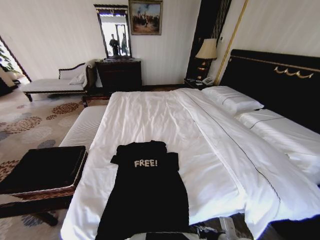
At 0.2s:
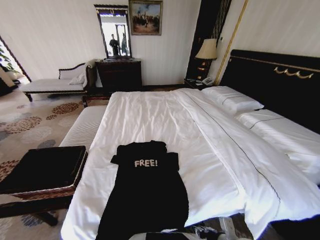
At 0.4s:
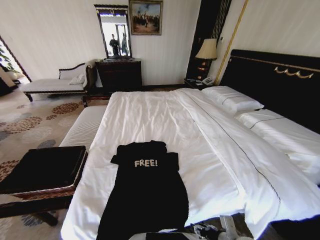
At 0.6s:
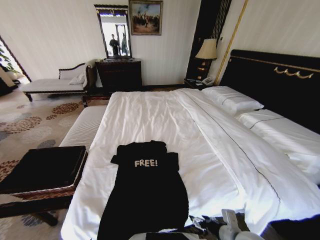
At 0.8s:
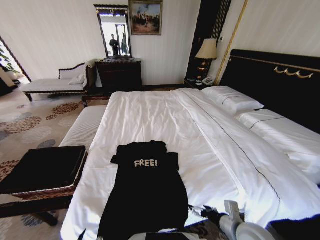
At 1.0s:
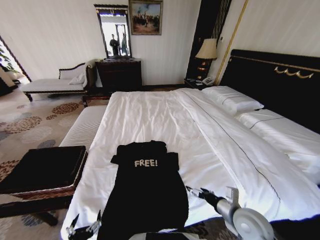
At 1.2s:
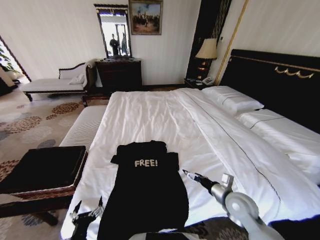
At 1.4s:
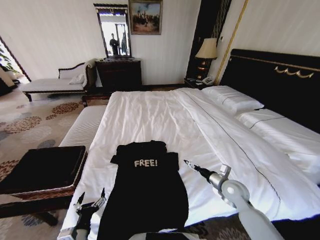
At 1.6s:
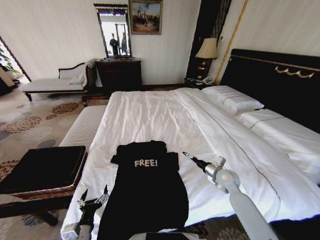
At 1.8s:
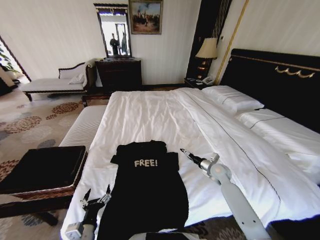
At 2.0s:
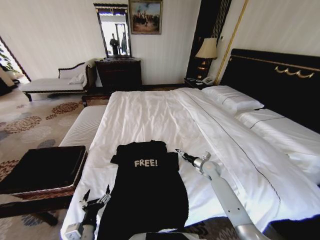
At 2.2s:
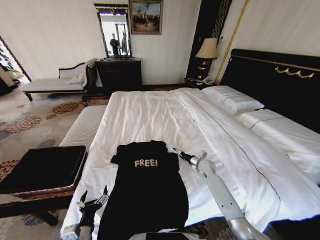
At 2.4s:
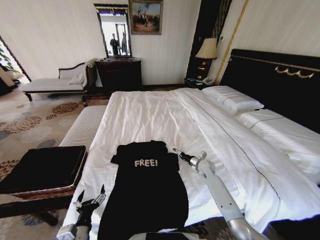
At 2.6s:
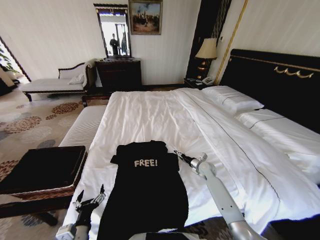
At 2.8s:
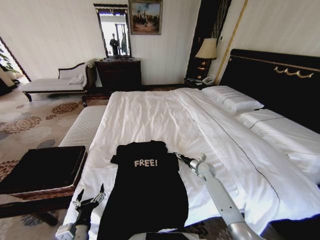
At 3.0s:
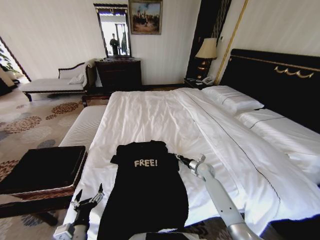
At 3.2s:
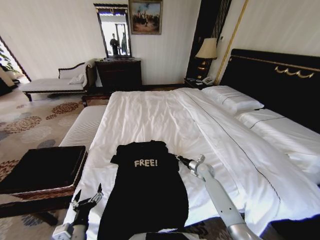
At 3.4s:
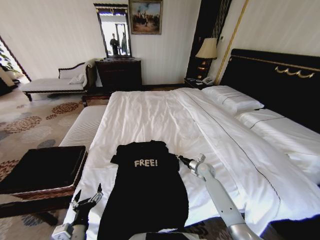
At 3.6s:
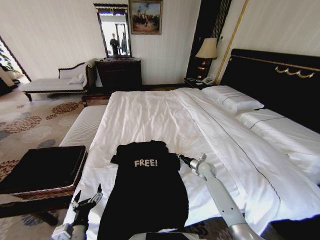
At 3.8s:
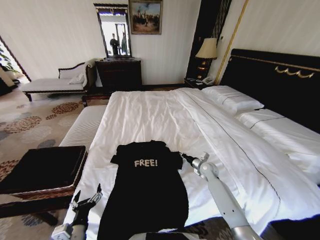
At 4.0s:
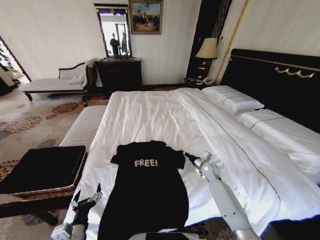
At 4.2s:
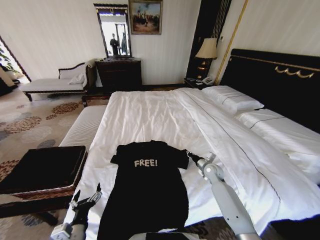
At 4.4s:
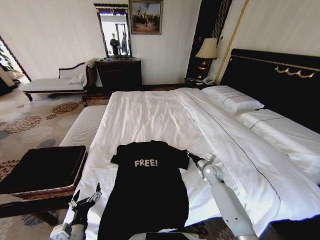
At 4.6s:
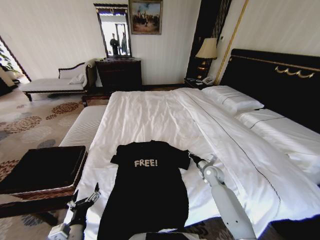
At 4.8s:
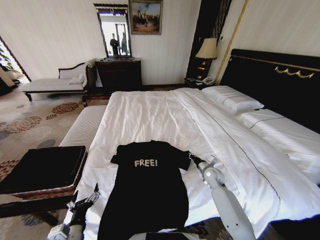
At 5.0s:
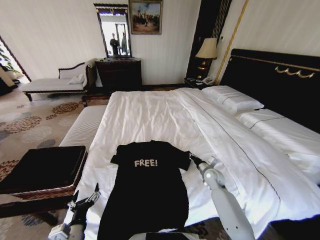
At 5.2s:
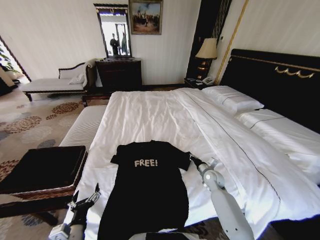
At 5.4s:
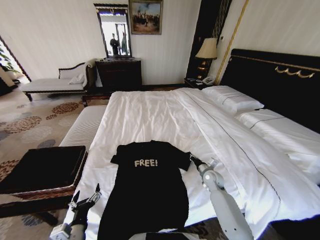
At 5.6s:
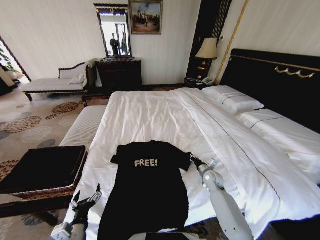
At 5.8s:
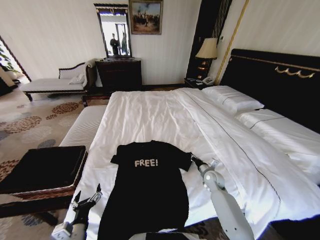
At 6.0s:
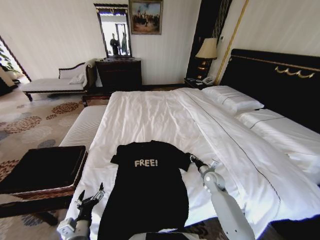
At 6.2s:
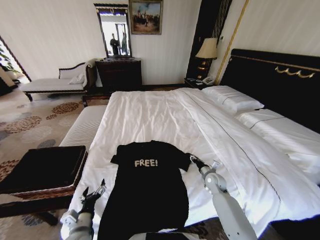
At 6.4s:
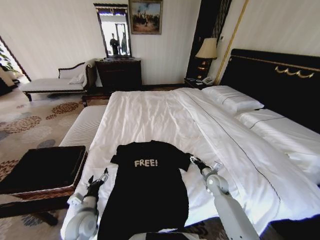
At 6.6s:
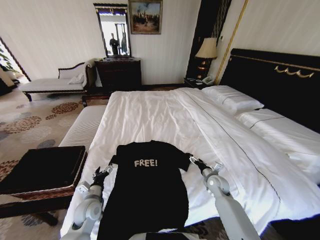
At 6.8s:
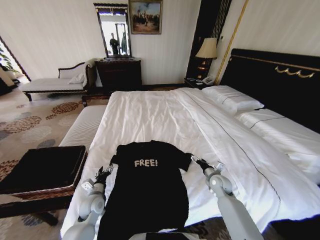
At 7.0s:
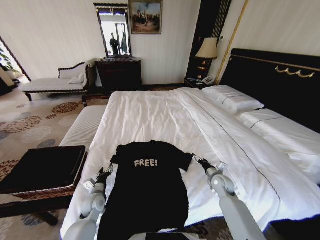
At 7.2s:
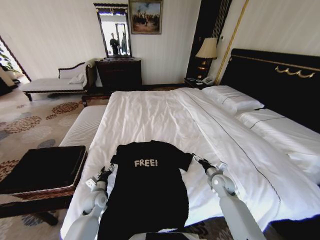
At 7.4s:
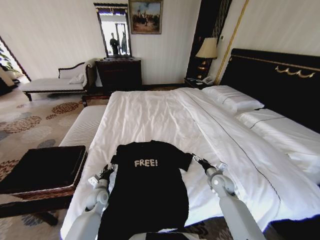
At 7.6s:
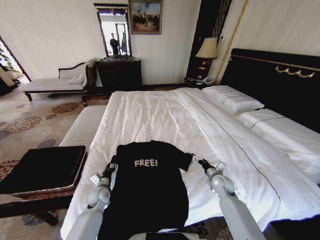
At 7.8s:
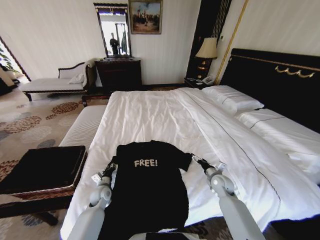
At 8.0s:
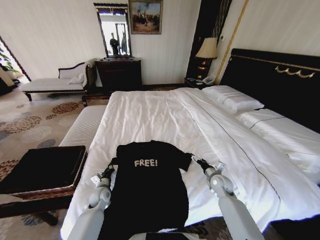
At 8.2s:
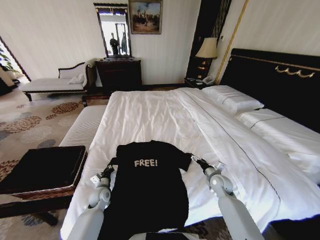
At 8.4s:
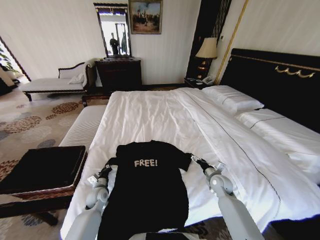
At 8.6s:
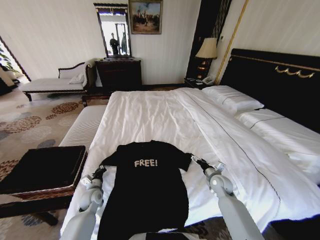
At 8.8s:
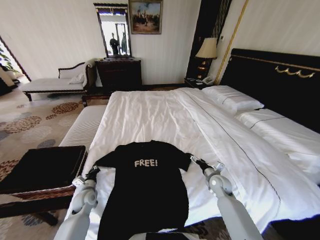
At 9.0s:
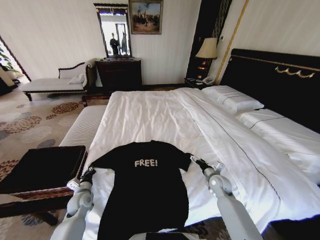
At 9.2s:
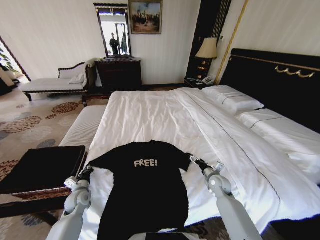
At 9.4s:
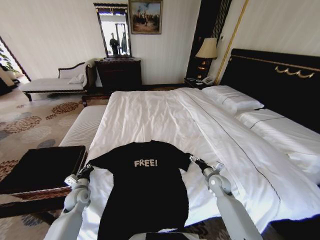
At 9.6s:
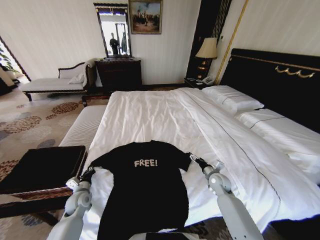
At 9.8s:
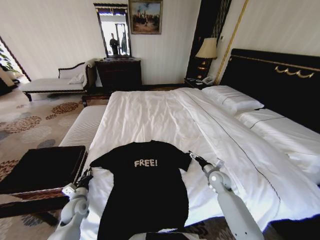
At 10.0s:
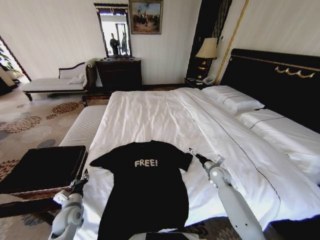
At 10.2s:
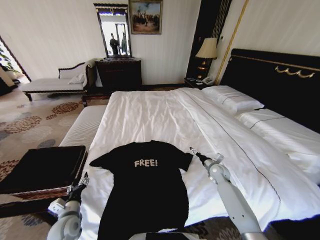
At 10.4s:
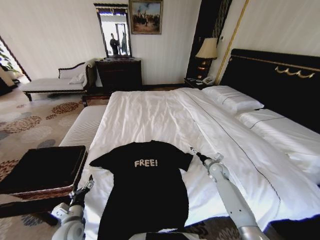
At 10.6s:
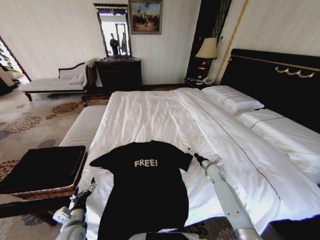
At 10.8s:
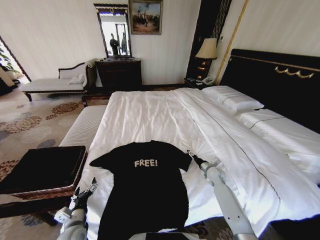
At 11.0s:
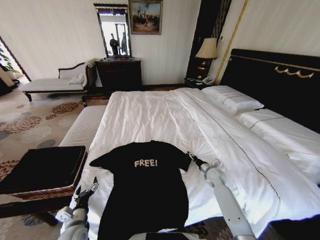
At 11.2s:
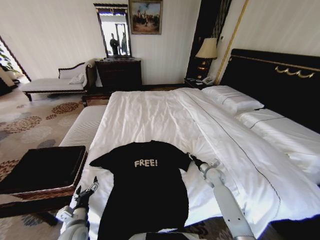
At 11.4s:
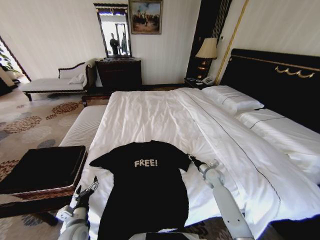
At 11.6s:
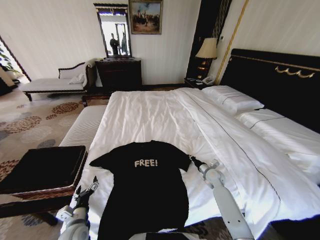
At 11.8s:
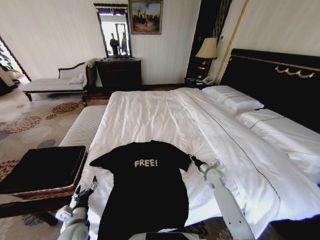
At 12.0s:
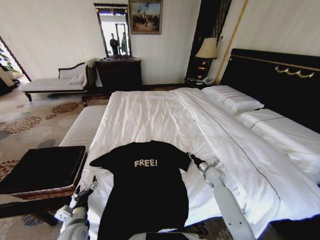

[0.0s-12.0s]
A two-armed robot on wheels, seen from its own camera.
Task of the whole recording: Fold the clothes on the bed and place them into the basket.
0.0s to 1.6s: The right gripper shifts about 25 cm forward, and opens its fingers, while the left gripper moves forward, approximately 15 cm, and opens up.
1.6s to 3.0s: The right gripper heads downward and forward, covering about 10 cm, and closes up.
4.4s to 6.0s: The grippers move only a little.
6.0s to 7.6s: The right gripper opens its fingers. The left gripper heads forward, covering about 20 cm, and closes.
7.6s to 9.0s: The left gripper travels to the left by about 5 cm, and closes up.
9.0s to 10.4s: The left gripper travels backward by some 10 cm, and opens up. The right gripper goes approximately 10 cm forward.
10.4s to 12.0s: The right gripper closes.

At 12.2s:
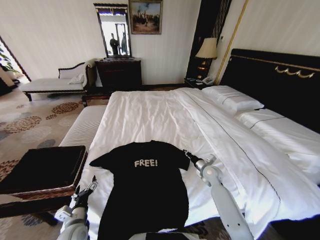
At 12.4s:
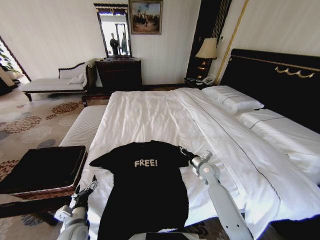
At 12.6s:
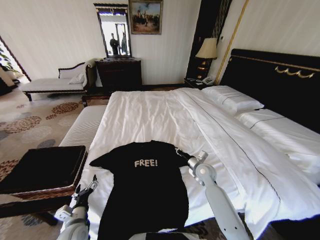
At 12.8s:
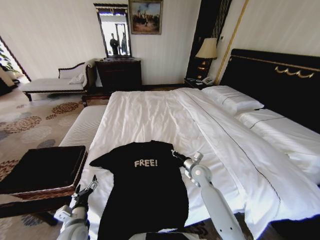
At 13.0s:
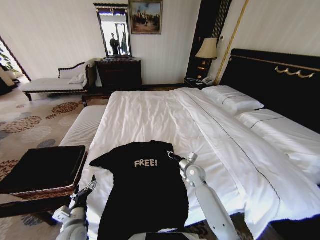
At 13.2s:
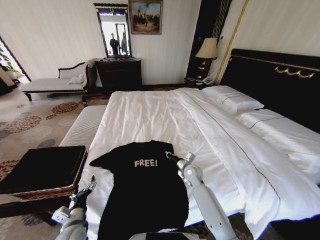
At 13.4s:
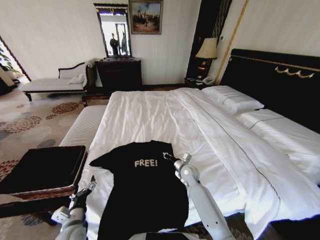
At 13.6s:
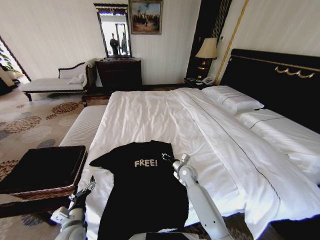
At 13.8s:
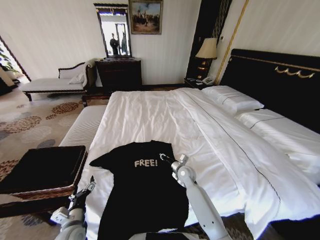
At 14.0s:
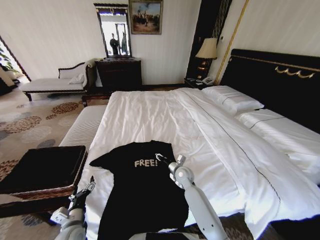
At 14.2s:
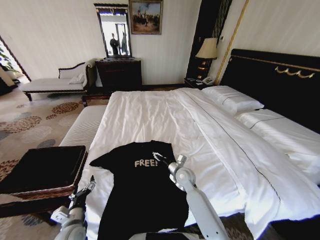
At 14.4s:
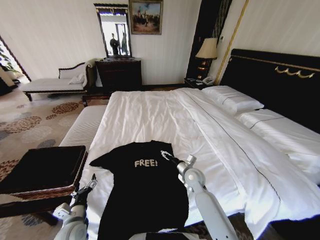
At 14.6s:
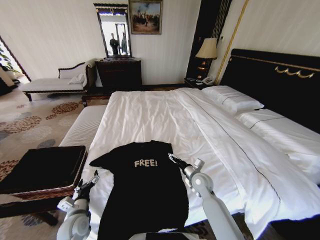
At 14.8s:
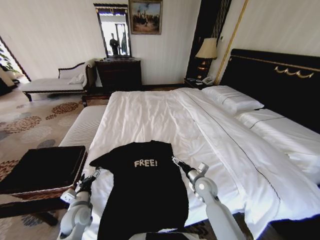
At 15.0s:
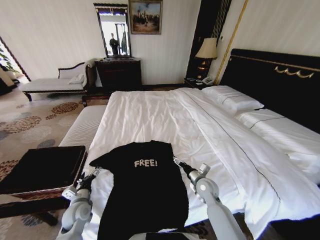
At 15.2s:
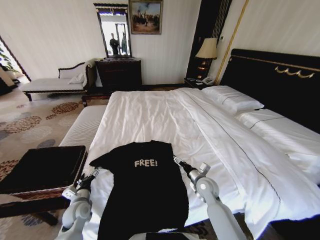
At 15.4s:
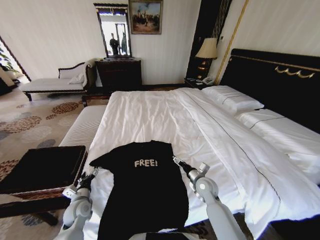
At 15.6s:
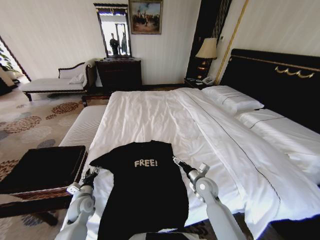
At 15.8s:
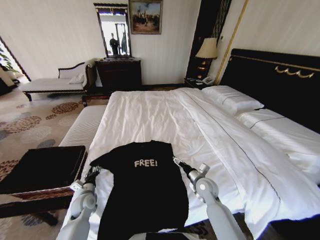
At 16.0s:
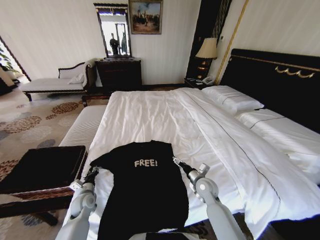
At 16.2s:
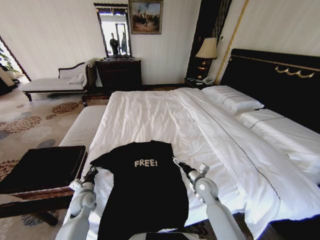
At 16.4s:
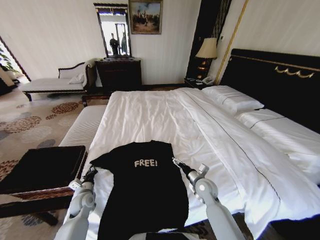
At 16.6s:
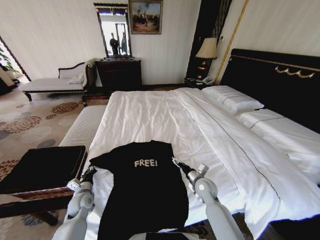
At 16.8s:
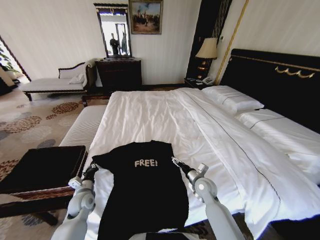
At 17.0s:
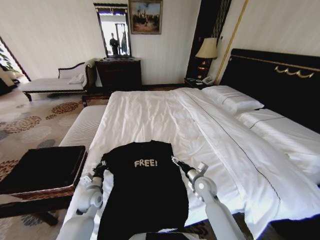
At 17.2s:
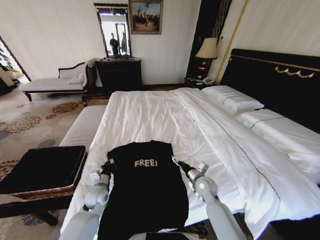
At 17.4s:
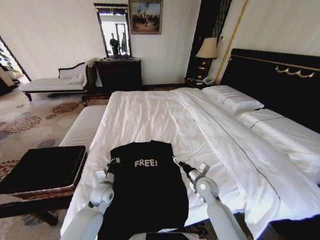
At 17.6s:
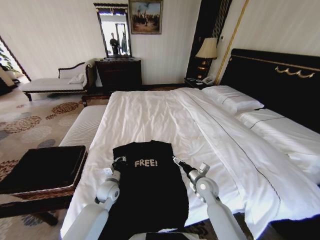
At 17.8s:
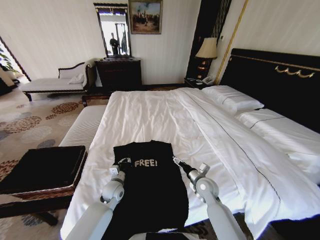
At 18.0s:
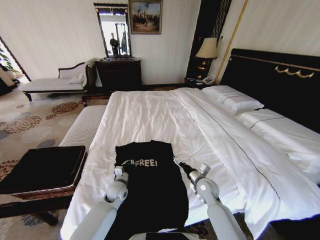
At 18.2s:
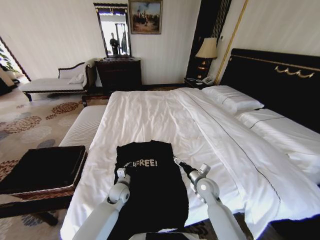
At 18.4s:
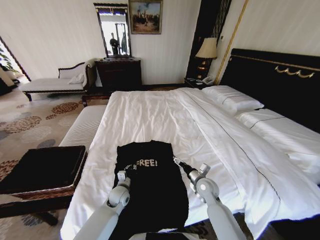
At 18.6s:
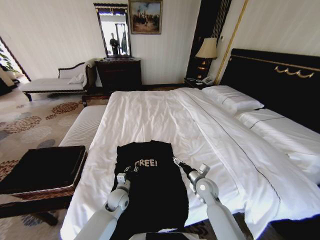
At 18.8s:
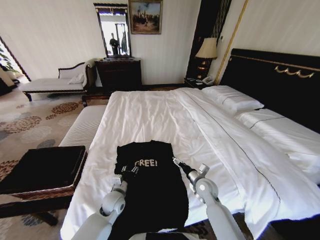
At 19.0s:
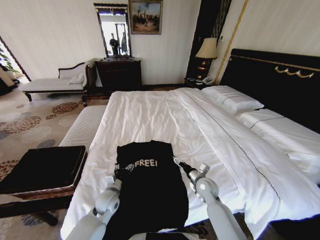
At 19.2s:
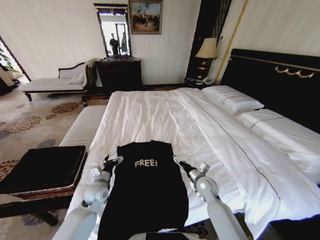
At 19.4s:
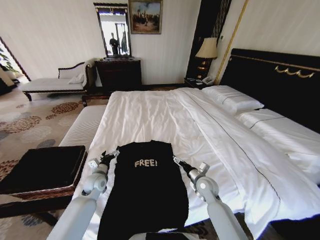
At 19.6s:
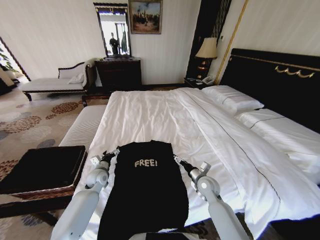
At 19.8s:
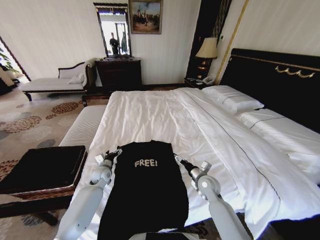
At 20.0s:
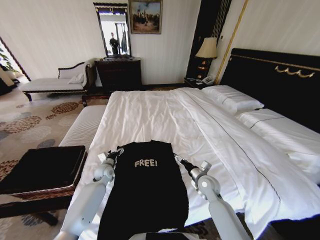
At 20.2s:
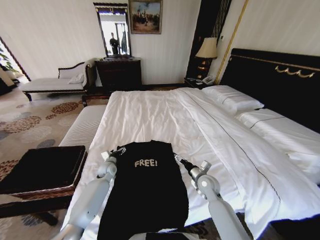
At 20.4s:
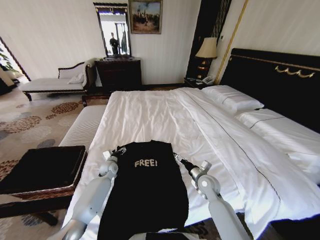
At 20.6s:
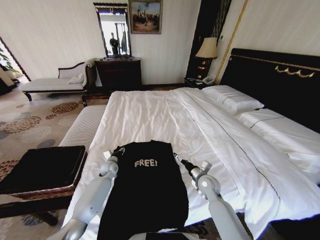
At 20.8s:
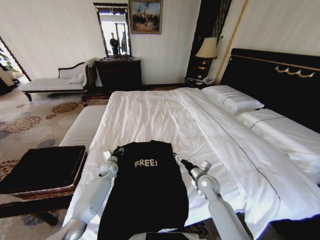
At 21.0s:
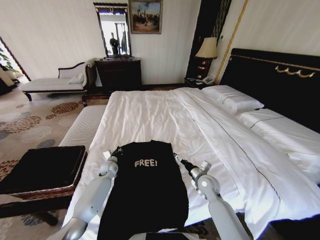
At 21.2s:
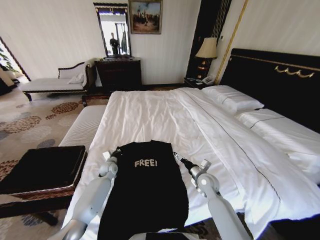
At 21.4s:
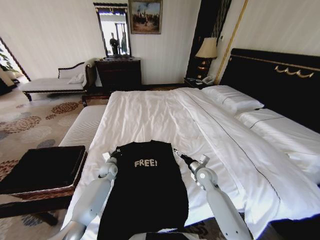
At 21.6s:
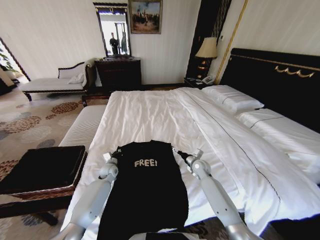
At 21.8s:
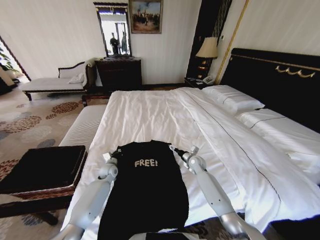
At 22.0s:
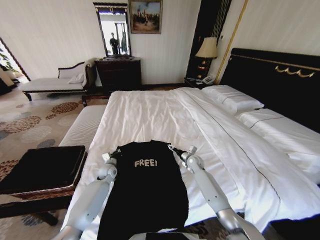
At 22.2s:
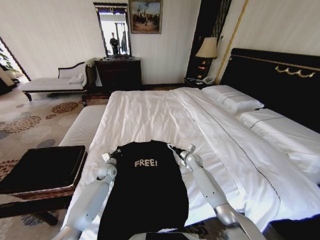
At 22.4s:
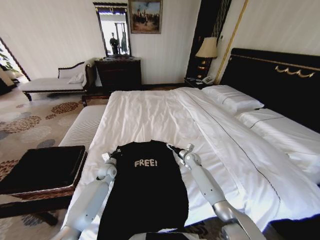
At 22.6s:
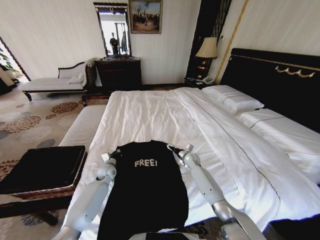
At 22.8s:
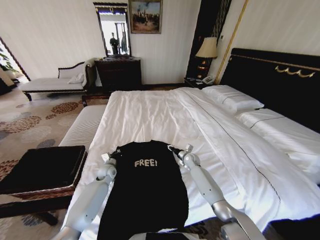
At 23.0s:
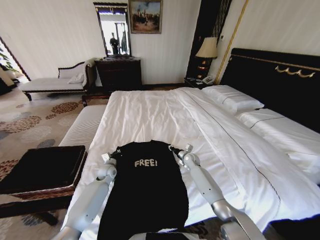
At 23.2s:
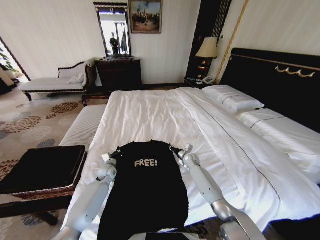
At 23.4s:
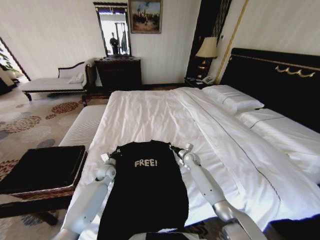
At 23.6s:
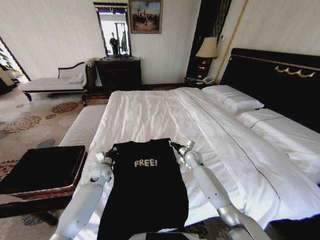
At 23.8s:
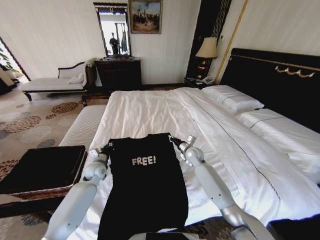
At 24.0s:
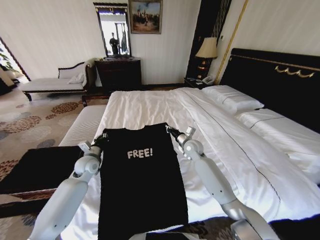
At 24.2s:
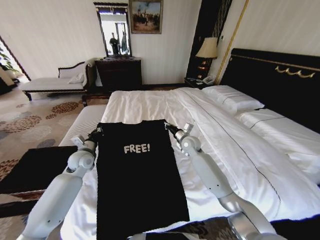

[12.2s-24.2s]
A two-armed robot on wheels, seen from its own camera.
Task of the whole recording: Fold the clothes on the bed and place them into the basket.
12.2s to 13.8s: The right gripper goes approximately 15 cm to the left.
13.8s to 15.2s: The right gripper goes roughly 10 cm backward and to the right, and opens. Meanwhile the left gripper goes roughly 10 cm forward.
15.2s to 16.6s: The left gripper closes up.
16.6s to 18.2s: The left gripper moves to the right, roughly 15 cm.
18.2s to 19.8s: The left gripper goes roughly 15 cm to the left and forward, and opens.
19.8s to 21.2s: The left gripper moves about 5 cm, and closes up.
21.2s to 22.6s: The right gripper goes some 15 cm forward.
22.6s to 24.2s: The right gripper moves upward, approximately 15 cm, and closes its fingers. The left gripper goes about 15 cm upward and to the left.
